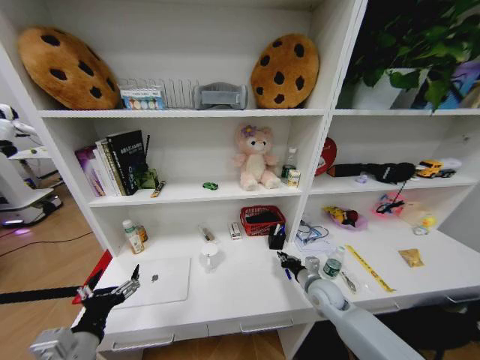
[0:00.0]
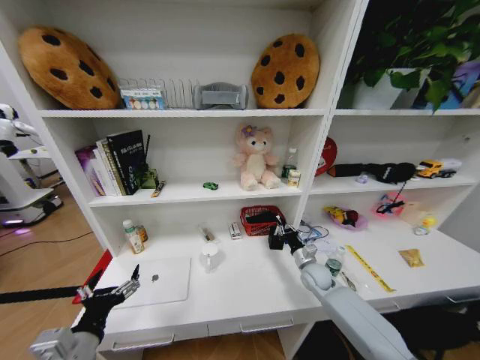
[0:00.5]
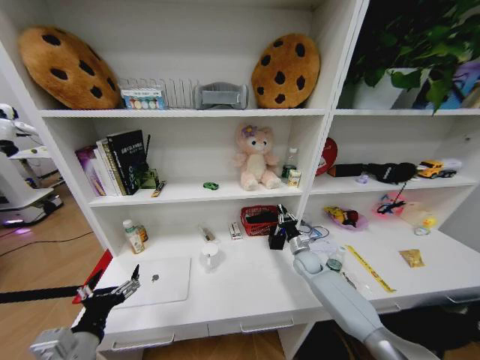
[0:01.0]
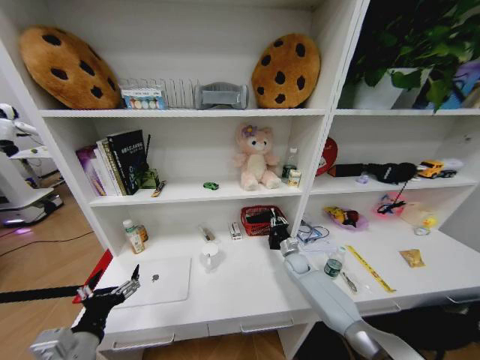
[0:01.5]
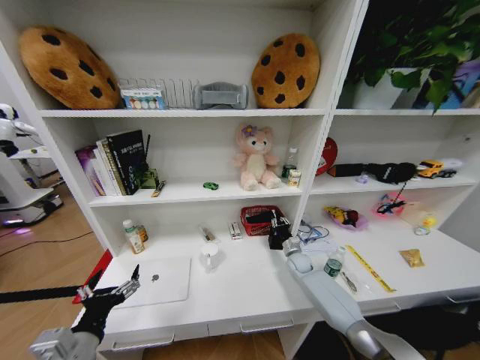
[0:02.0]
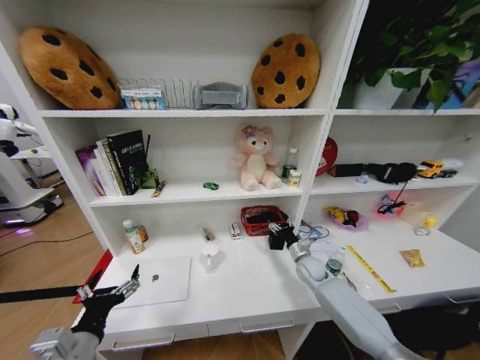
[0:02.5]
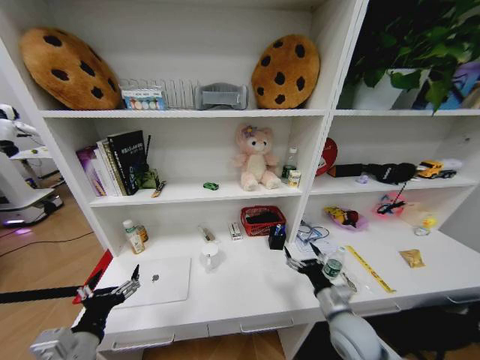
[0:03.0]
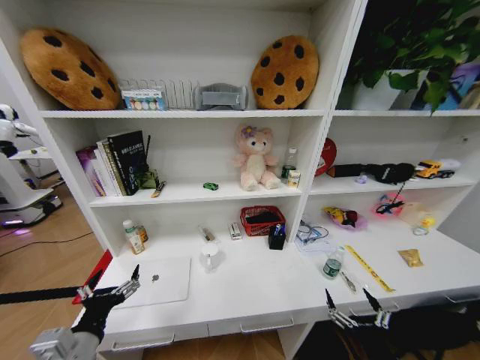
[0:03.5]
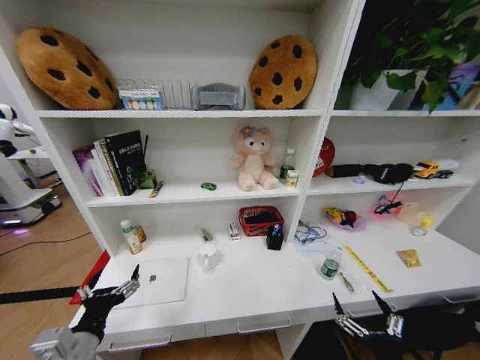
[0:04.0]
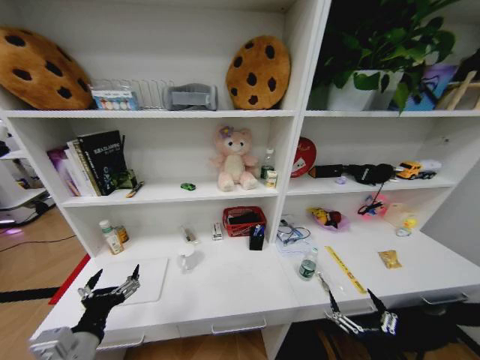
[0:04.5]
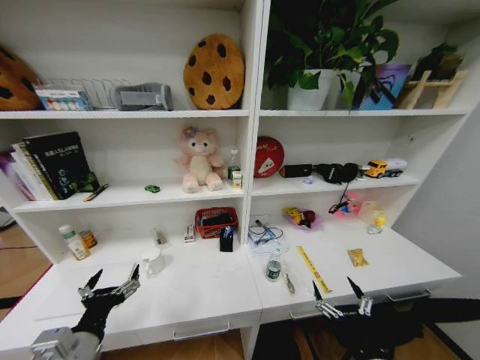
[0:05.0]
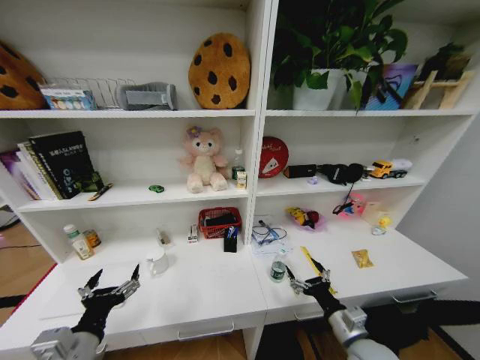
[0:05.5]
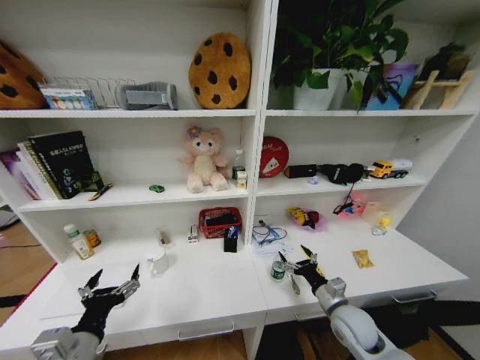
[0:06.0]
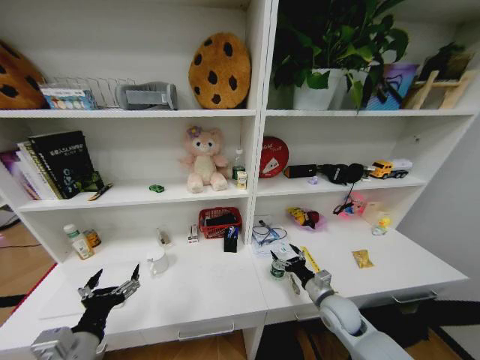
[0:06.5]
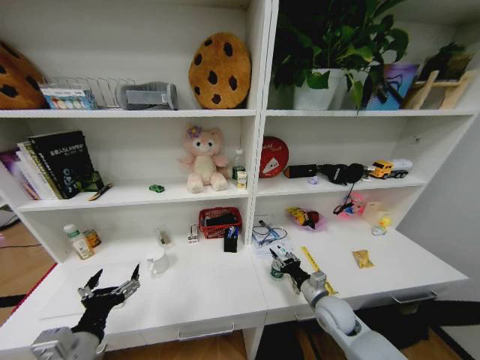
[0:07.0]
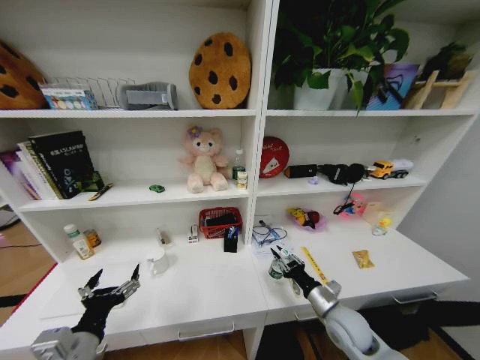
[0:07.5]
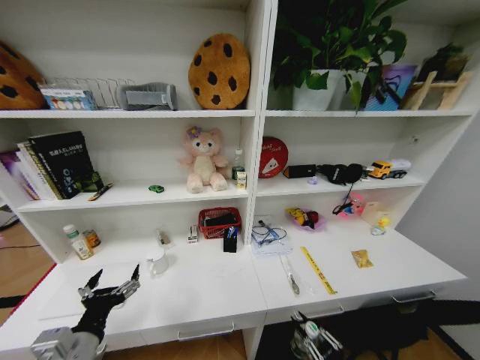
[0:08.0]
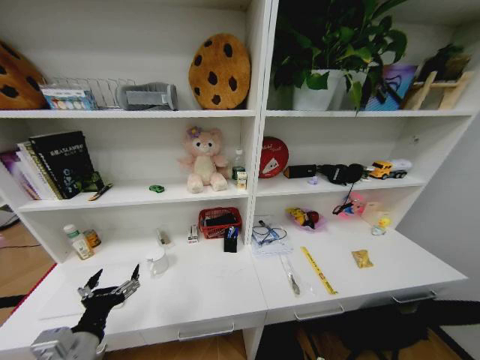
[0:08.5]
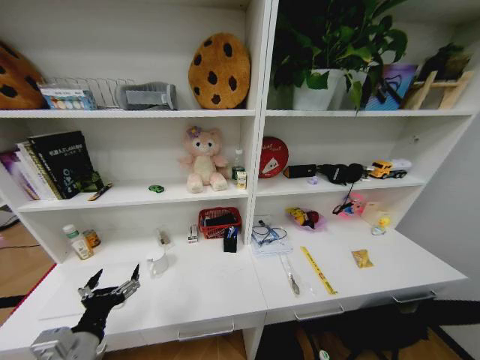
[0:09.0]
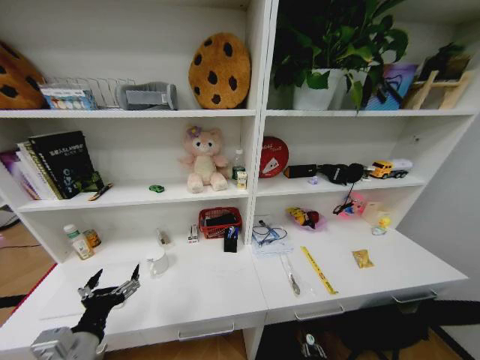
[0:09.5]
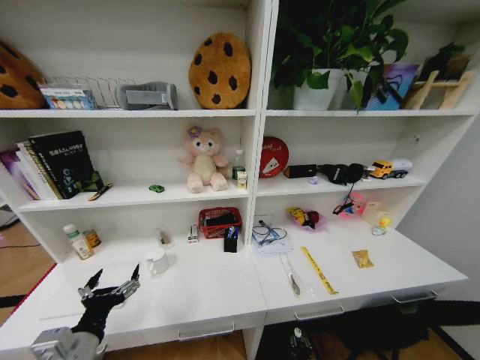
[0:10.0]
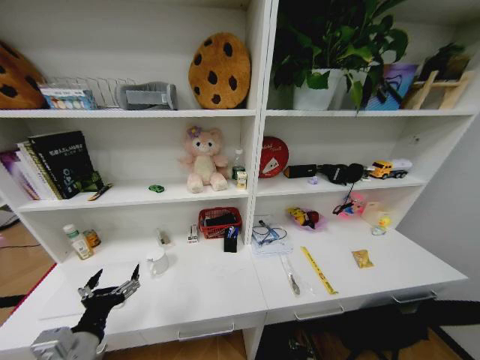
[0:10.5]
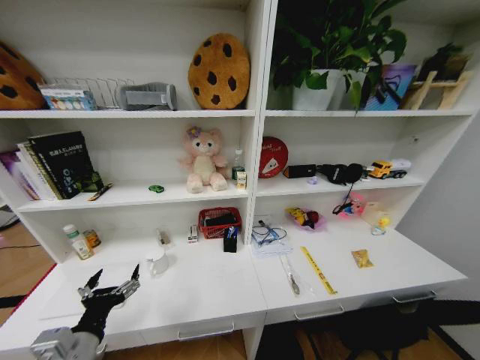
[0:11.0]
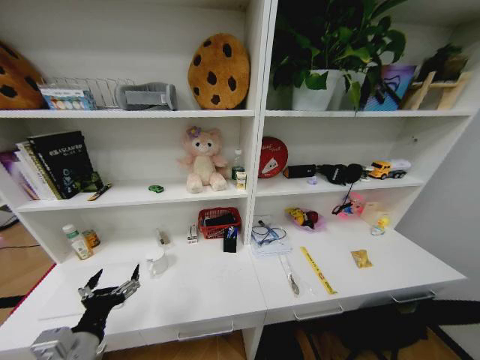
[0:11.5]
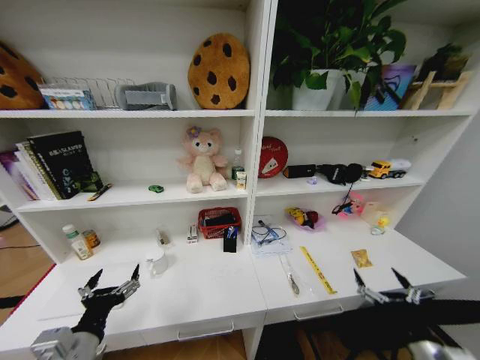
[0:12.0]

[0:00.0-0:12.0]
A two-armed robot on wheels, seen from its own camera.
Task of the whole recording: Organize the objects on the table.
0:00.0 to 0:02.0: The right gripper moves forward and downward, approximately 15 cm.
0:02.0 to 0:04.0: The right gripper shifts some 40 cm backward, and opens up.
0:04.0 to 0:06.0: The right gripper moves forward, approximately 20 cm.
0:06.0 to 0:08.0: The right gripper goes some 20 cm backward, and closes.
0:08.0 to 0:10.0: The right gripper travels downward by approximately 35 cm.
0:10.0 to 0:12.0: The right gripper is displaced upward by some 40 cm, and opens up.

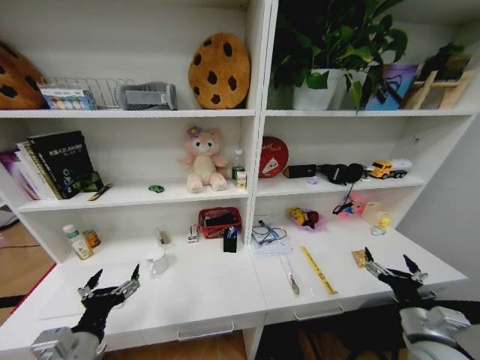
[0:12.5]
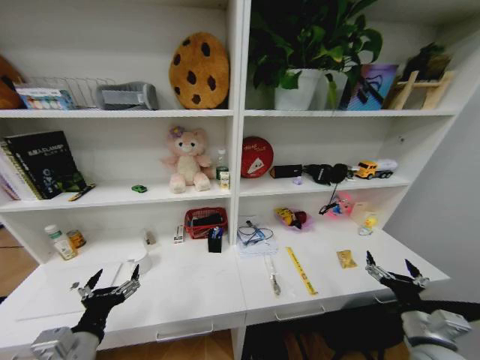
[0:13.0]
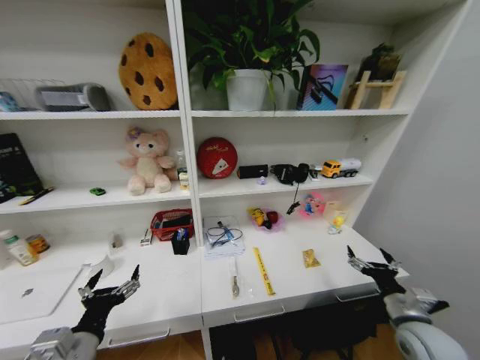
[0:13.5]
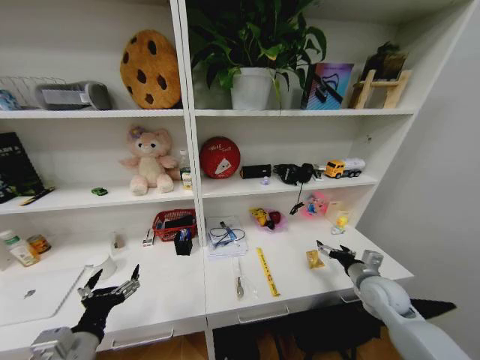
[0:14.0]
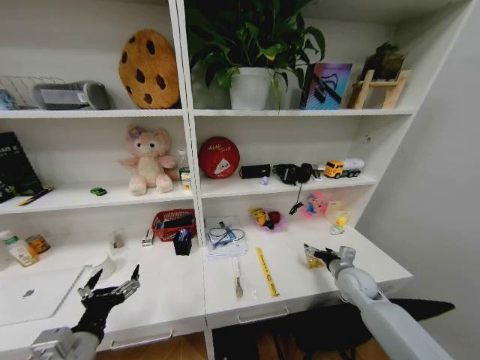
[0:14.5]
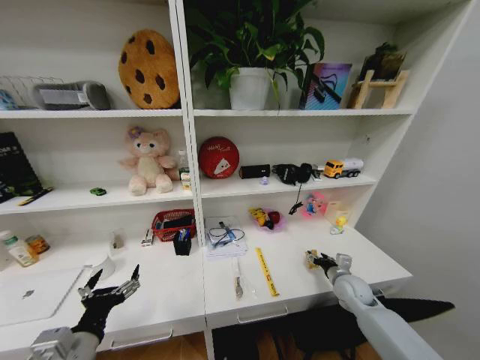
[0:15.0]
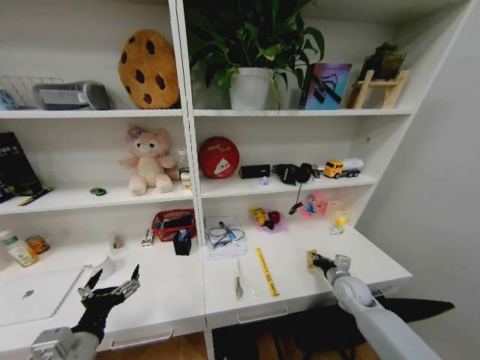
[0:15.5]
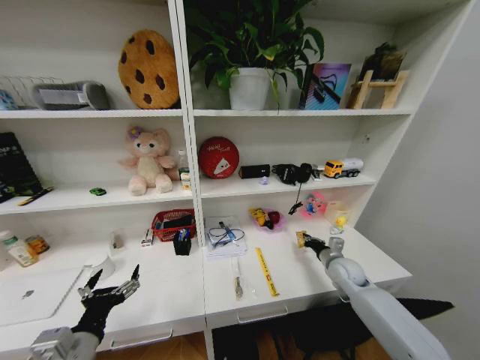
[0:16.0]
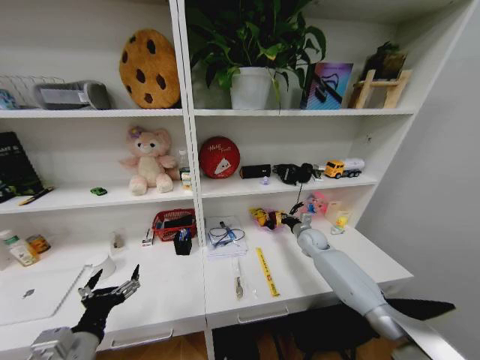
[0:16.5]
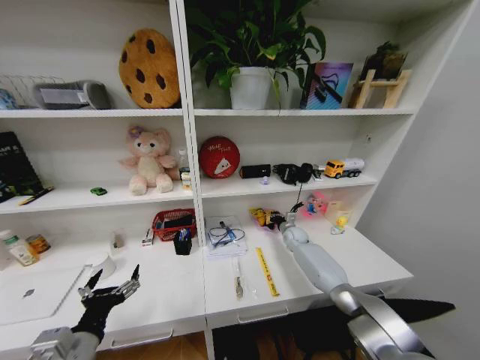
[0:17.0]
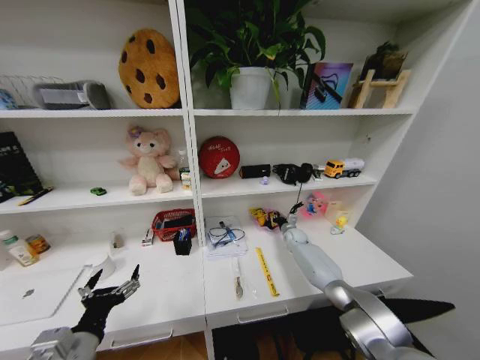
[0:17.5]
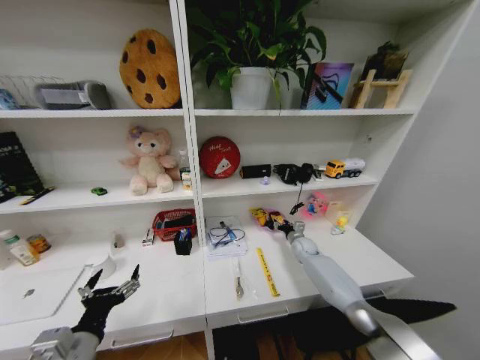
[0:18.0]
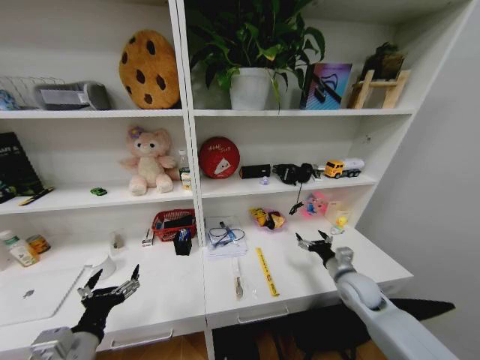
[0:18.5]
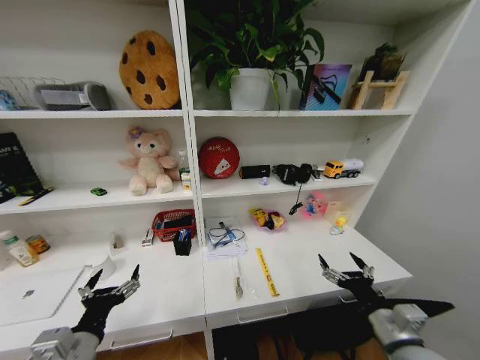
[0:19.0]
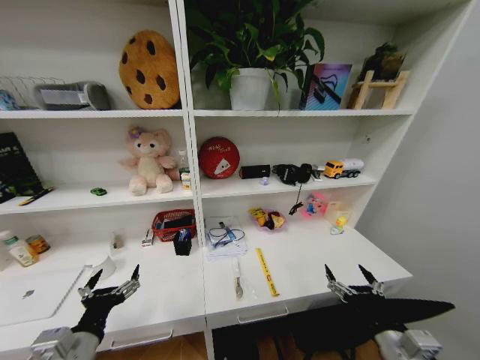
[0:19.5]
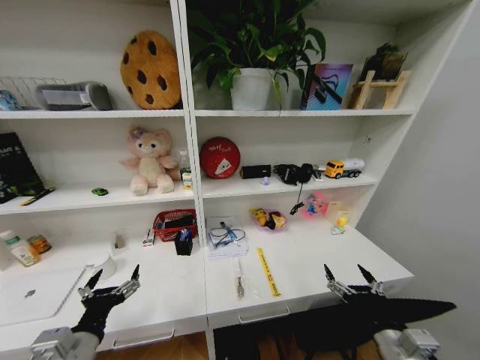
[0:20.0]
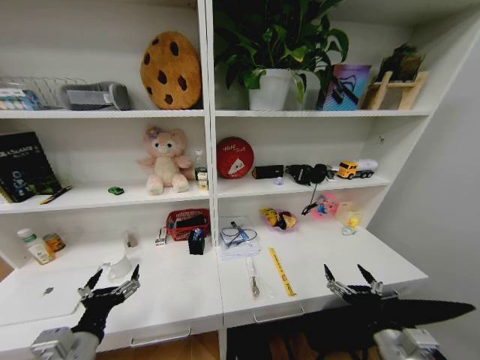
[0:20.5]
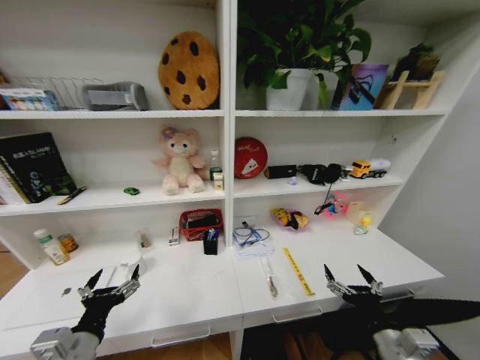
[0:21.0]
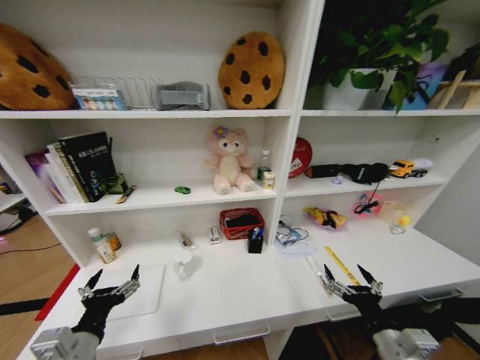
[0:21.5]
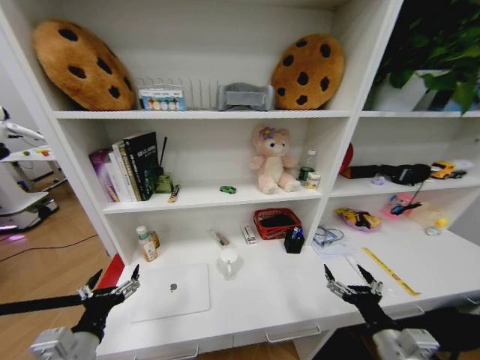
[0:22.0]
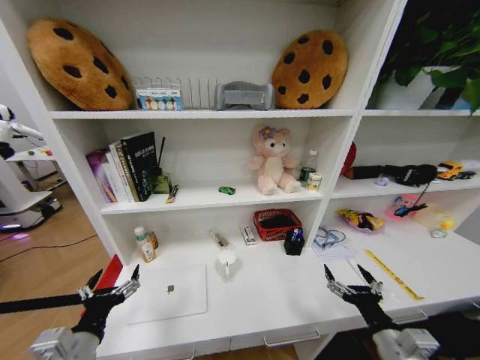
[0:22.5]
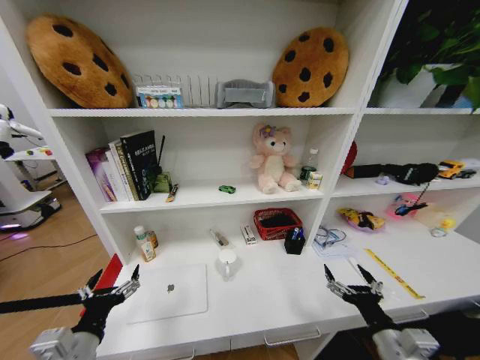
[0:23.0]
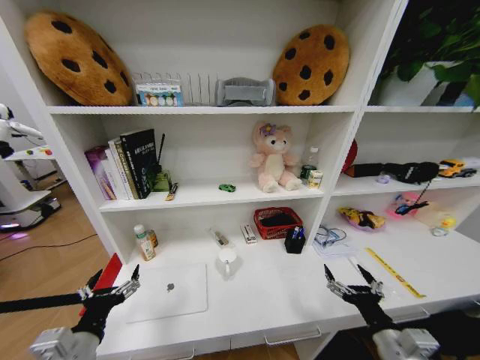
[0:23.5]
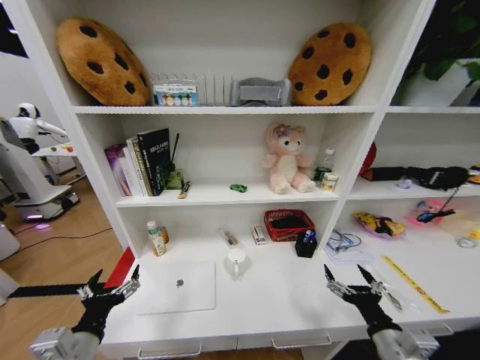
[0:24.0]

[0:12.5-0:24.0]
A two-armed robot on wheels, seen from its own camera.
Task of the whole recording: Organize the objects on the table.
0:12.5 to 0:14.5: The right gripper is displaced forward by about 20 cm.
0:14.5 to 0:16.5: The right gripper is displaced forward and to the left by about 15 cm, and closes.
0:16.5 to 0:18.5: The right gripper moves backward, roughly 15 cm, and opens up.
0:18.5 to 0:20.0: The right gripper moves backward, roughly 20 cm.
